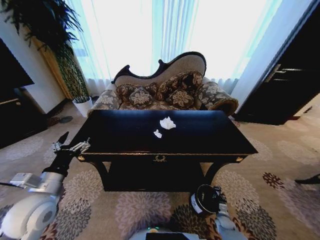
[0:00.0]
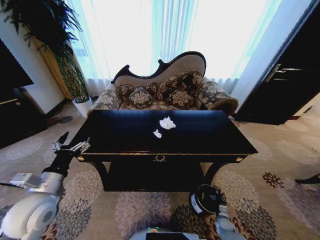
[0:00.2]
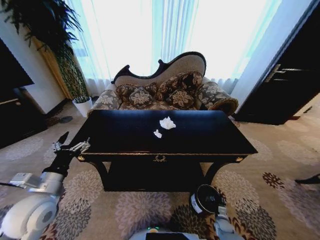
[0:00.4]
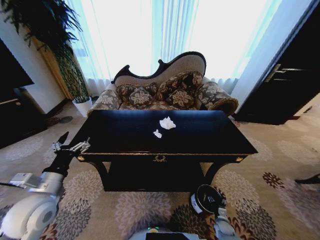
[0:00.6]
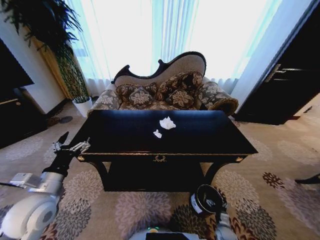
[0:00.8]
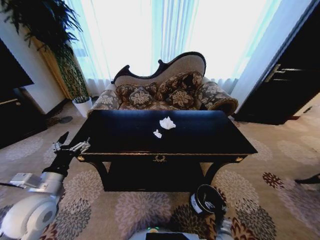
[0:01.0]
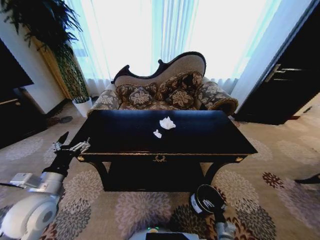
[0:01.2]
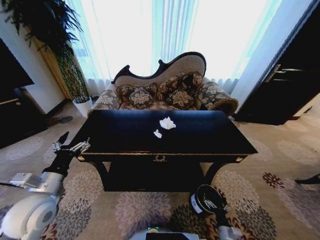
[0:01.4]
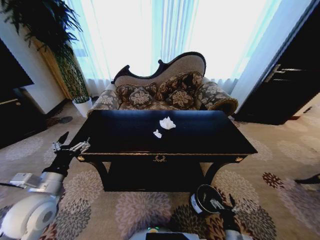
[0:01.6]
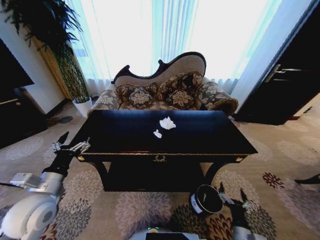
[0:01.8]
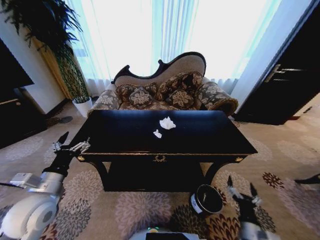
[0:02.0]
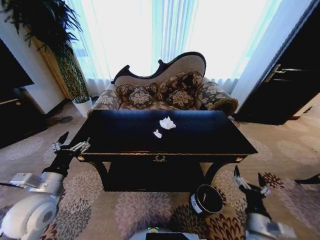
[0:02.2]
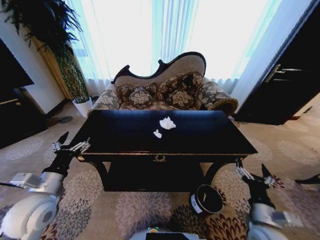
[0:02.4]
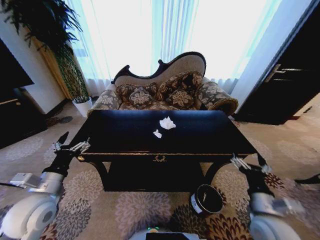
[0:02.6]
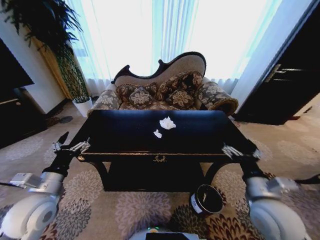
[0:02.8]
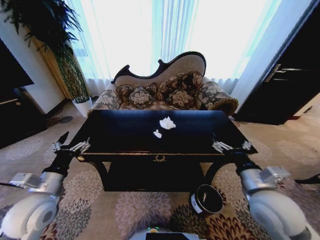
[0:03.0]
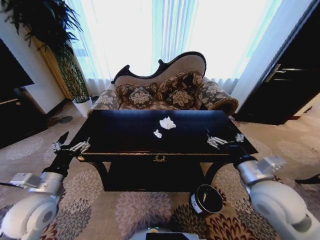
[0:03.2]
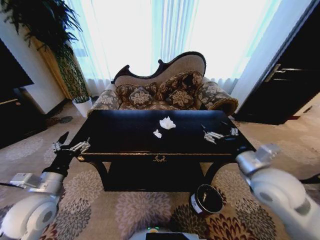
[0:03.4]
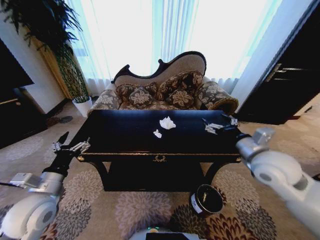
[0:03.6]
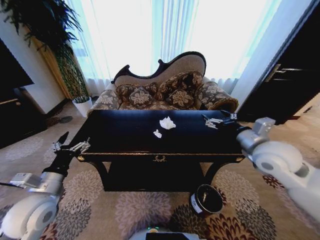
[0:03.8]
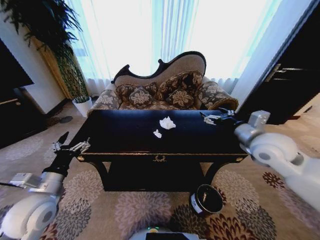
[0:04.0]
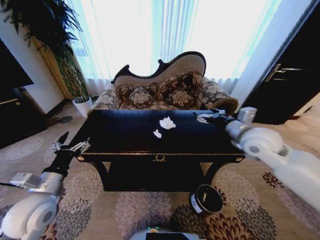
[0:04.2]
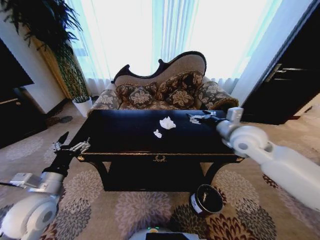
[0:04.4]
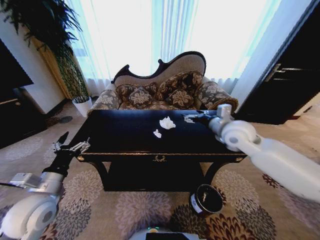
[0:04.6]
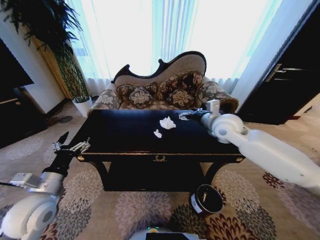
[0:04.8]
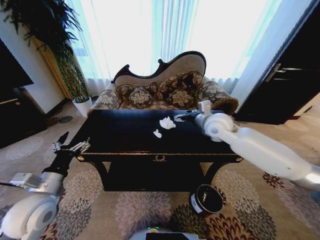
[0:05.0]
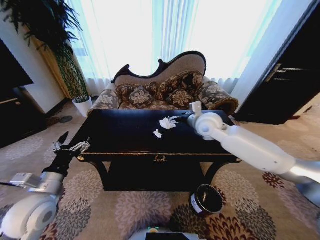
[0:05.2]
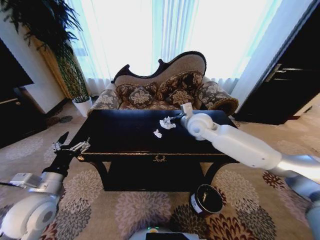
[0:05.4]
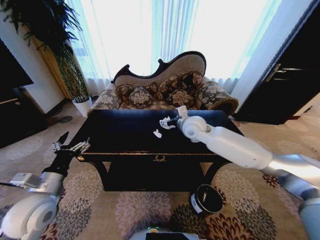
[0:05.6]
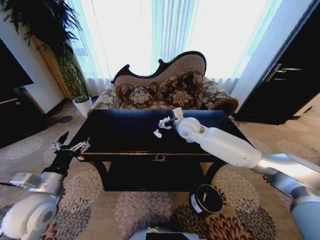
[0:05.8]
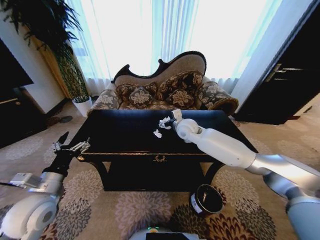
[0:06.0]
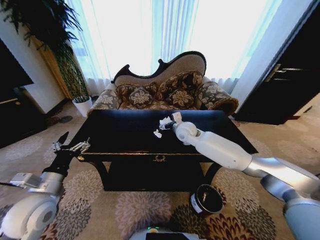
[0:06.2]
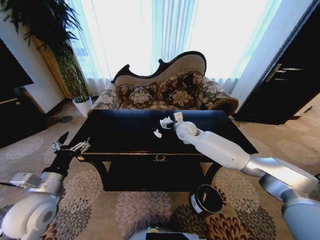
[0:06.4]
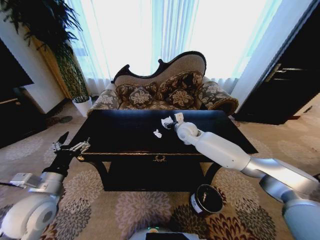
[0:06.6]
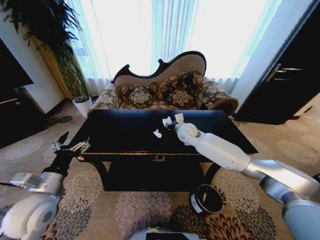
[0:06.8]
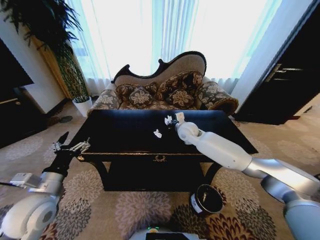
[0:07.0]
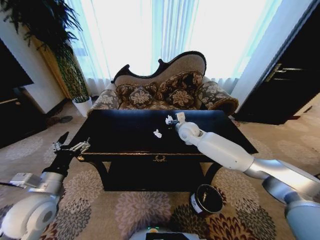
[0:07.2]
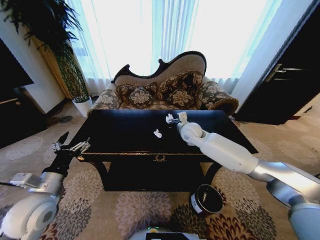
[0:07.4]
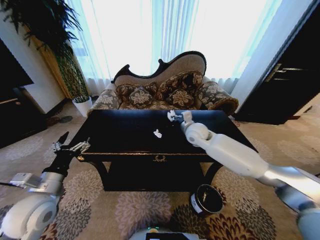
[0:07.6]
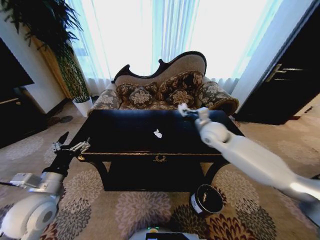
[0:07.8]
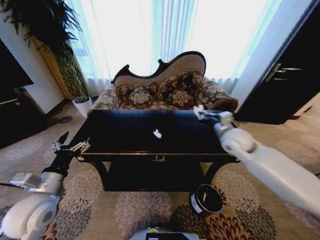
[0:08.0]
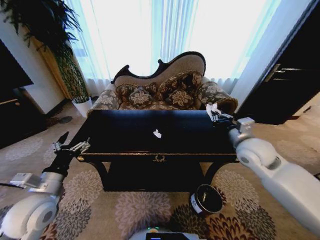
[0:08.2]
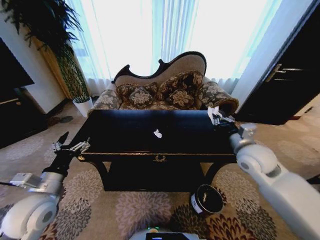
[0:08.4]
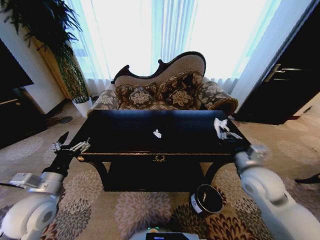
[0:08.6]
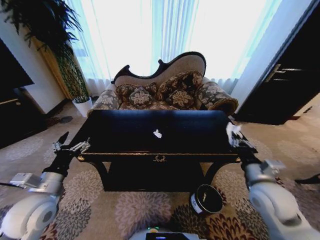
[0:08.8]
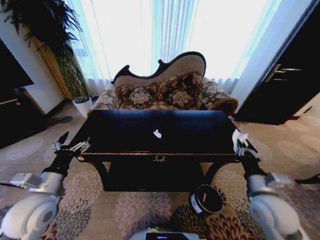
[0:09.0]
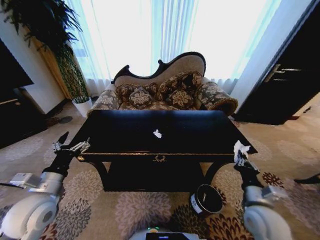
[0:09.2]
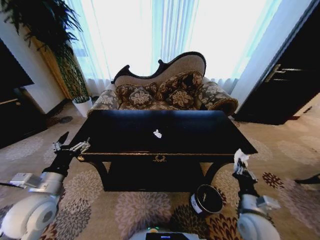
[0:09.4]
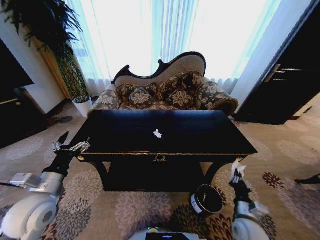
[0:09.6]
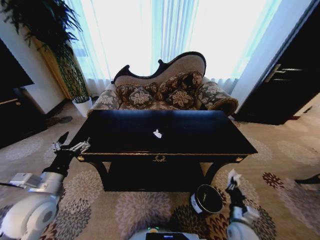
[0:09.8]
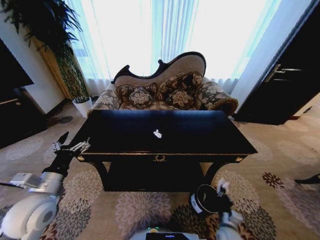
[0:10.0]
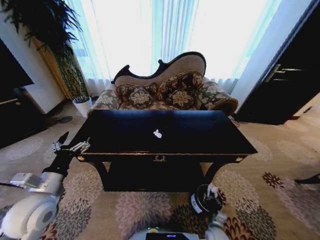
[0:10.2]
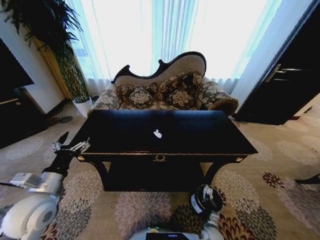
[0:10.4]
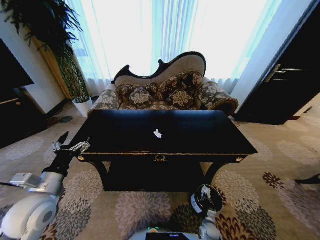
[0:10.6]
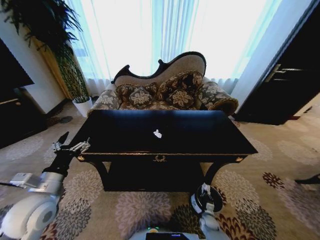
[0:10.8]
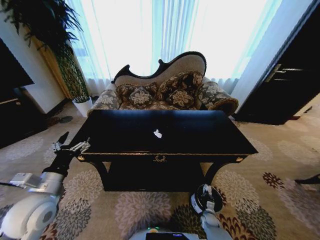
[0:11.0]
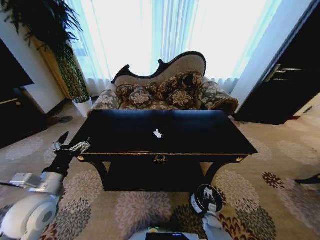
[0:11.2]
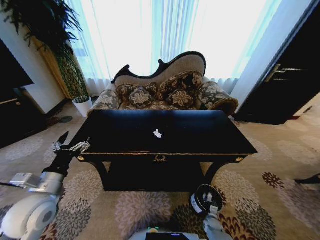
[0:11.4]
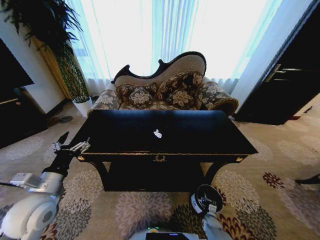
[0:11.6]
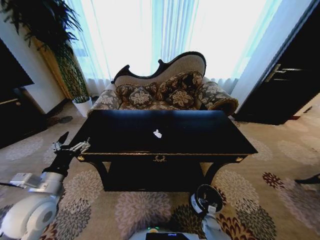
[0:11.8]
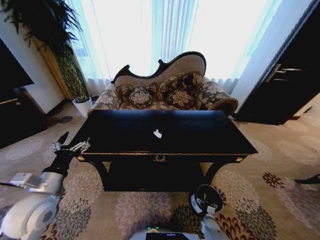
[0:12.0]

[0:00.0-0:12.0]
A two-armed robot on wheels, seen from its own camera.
Task of the whole recording: Move to the front of the table and place the trash on the table into the trash bin.
0:00.0 to 0:01.6: The right gripper goes approximately 20 cm backward, upward and to the left, and opens up.
0:01.6 to 0:03.0: The right gripper moves upward, roughly 35 cm.
0:03.0 to 0:04.4: The right gripper is displaced forward and upward by roughly 20 cm.
0:04.4 to 0:06.0: The right gripper goes some 20 cm to the left and forward.
0:06.0 to 0:07.6: The right gripper moves roughly 5 cm, and closes.
0:07.6 to 0:09.0: The right gripper heads backward and to the right, covering about 30 cm.
0:09.0 to 0:10.4: The right gripper shifts approximately 40 cm downward.
0:10.4 to 0:12.0: The right gripper goes approximately 5 cm downward, and opens up.

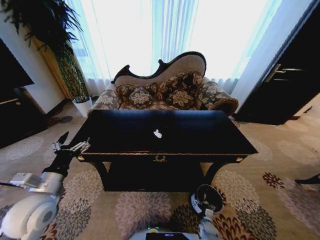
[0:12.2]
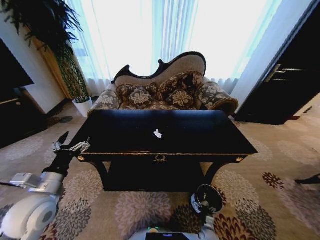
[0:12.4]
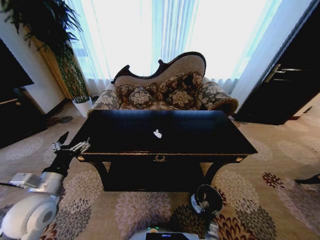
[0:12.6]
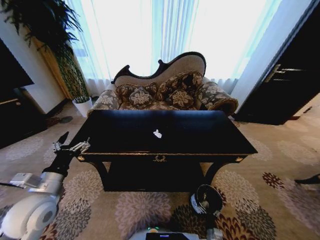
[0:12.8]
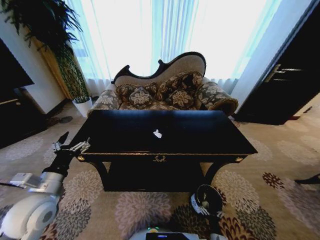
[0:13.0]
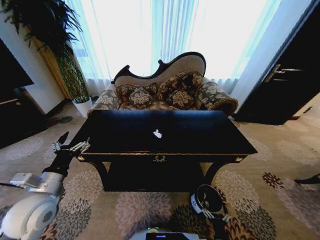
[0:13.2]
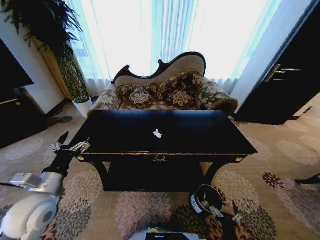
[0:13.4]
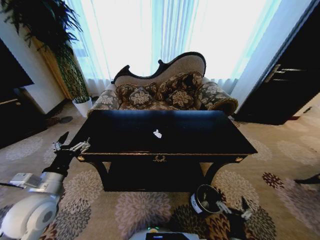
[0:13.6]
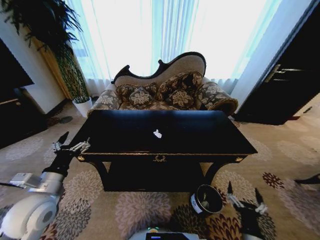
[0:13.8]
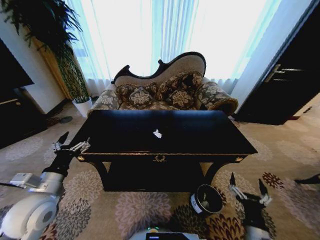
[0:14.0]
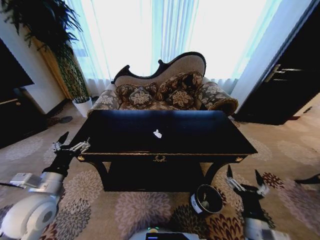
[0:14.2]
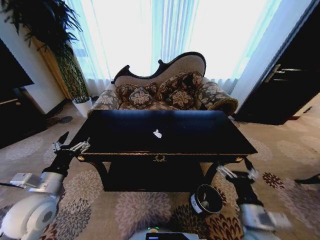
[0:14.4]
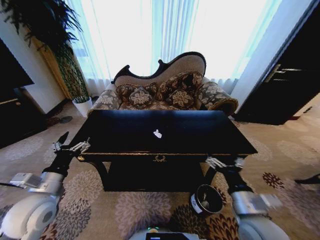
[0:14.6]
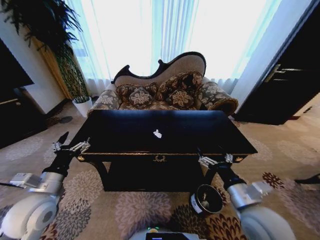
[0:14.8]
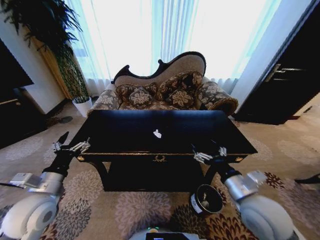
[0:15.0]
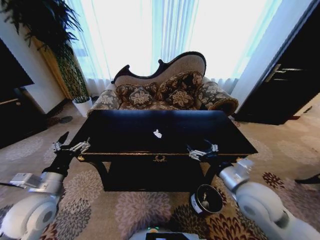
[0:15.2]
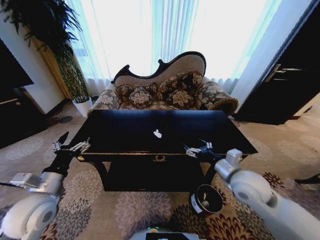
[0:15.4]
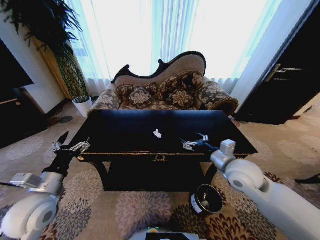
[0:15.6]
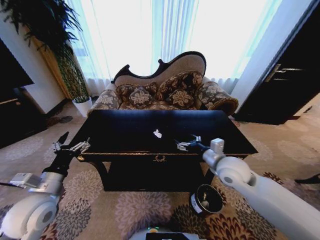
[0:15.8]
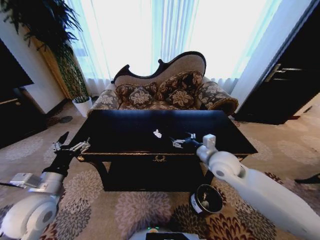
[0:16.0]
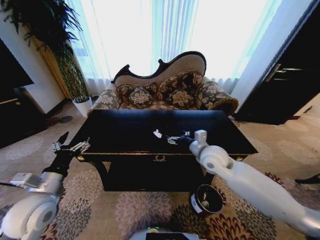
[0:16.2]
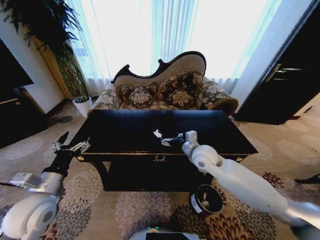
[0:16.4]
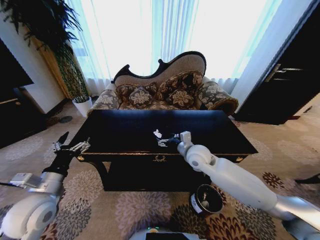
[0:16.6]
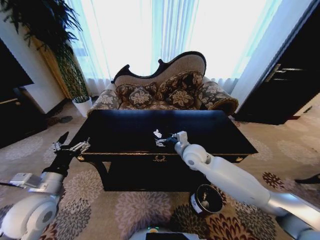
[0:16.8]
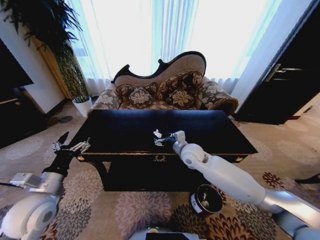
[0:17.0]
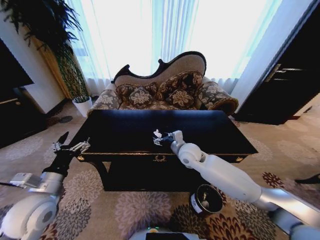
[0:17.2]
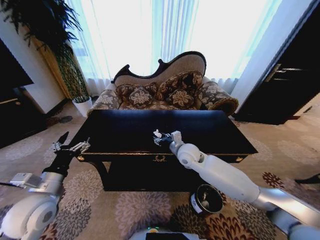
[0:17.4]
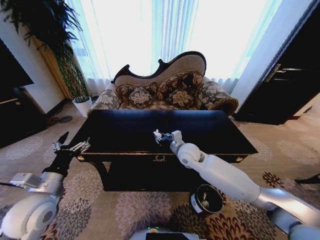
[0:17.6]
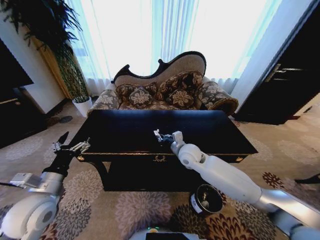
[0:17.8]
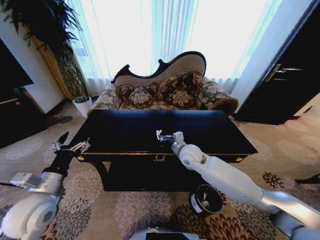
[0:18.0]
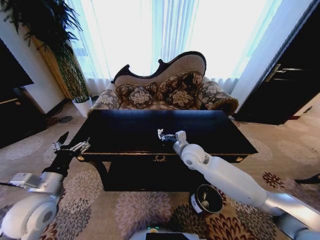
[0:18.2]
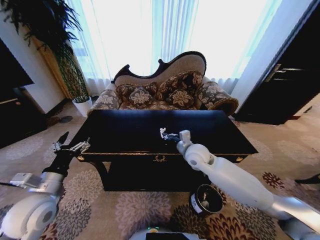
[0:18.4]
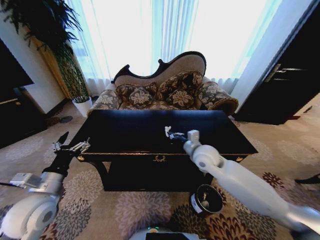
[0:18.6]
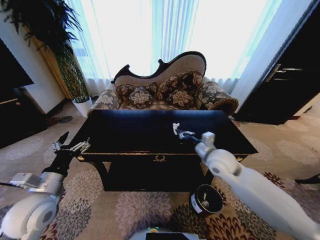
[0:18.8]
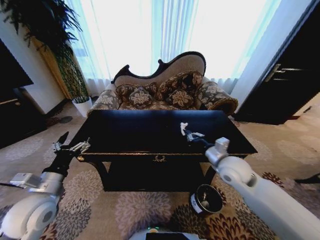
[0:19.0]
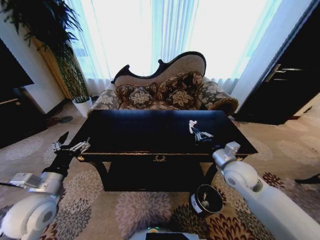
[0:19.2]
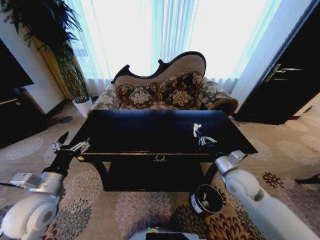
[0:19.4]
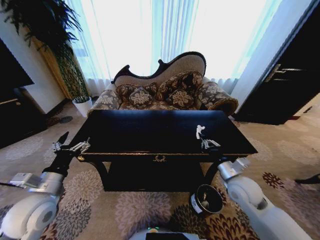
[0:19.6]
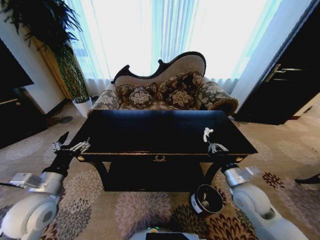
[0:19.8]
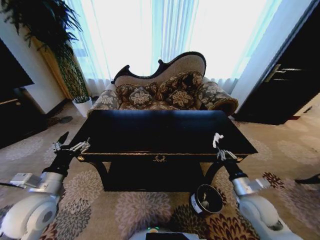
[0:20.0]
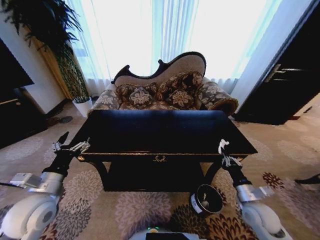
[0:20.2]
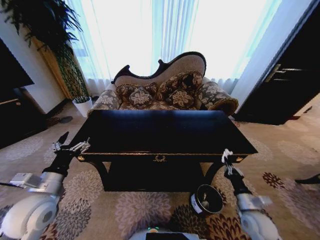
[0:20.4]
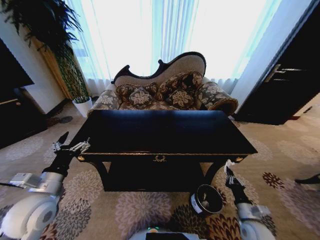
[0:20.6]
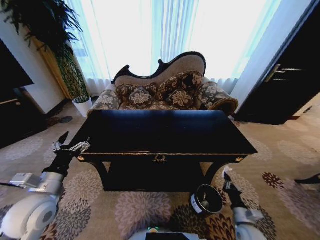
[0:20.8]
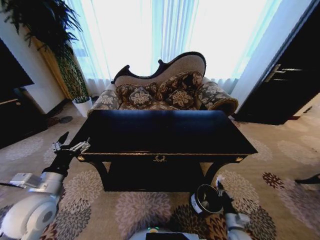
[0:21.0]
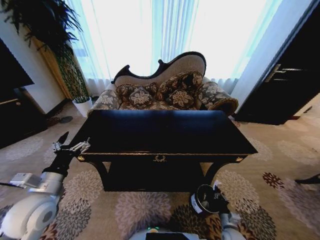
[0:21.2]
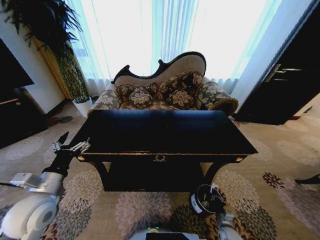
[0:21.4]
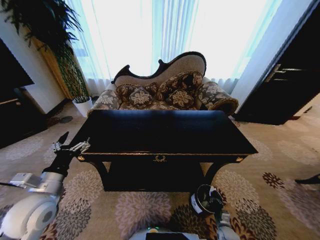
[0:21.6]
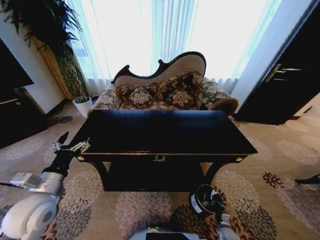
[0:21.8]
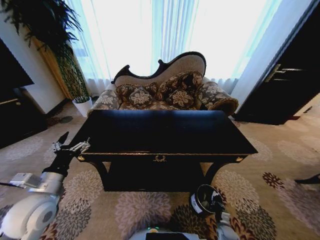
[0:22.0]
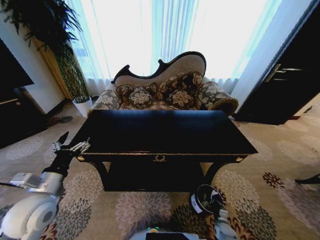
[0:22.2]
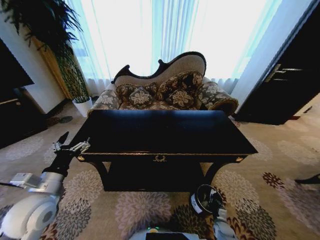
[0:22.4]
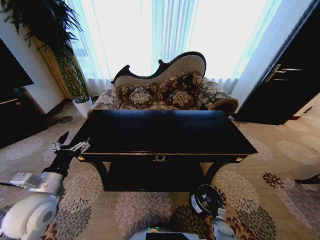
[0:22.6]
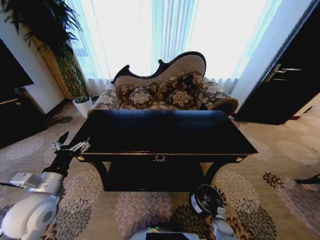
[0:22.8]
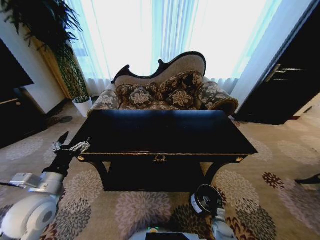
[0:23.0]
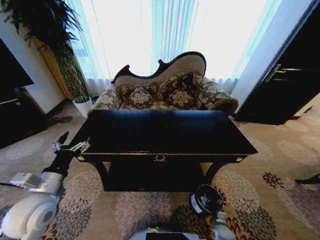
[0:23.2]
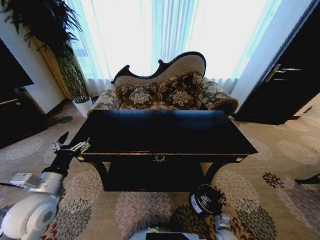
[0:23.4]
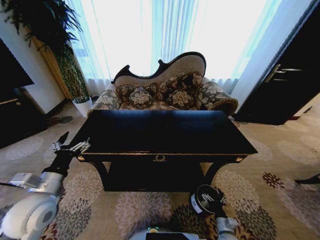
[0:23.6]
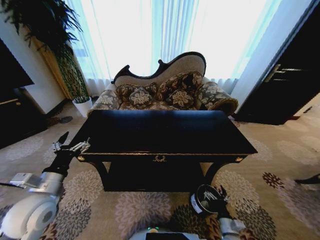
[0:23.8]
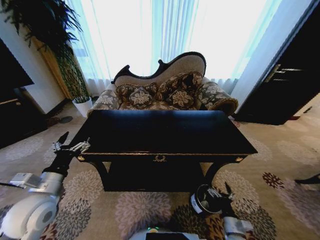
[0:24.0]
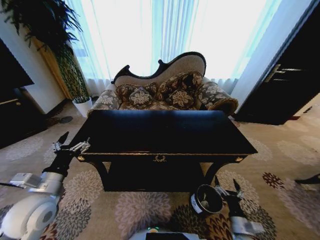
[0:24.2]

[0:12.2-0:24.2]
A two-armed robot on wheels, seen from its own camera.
Task of the whole recording: Move to the front of the table and place the trash on the table into the trash bin.
0:12.2 to 0:13.8: The right gripper travels upward and backward by some 30 cm.
0:13.8 to 0:15.2: The right gripper shifts roughly 25 cm upward and forward.
0:15.2 to 0:16.6: The right gripper travels forward and to the left by roughly 20 cm.
0:16.6 to 0:18.2: The right gripper closes up.
0:18.2 to 0:19.8: The right gripper shifts some 25 cm to the right and backward.
0:19.8 to 0:21.2: The right gripper moves downward, about 30 cm.
0:21.2 to 0:22.6: The right gripper shifts some 10 cm downward.
0:22.6 to 0:24.2: The right gripper shifts approximately 20 cm upward, and opens up.
